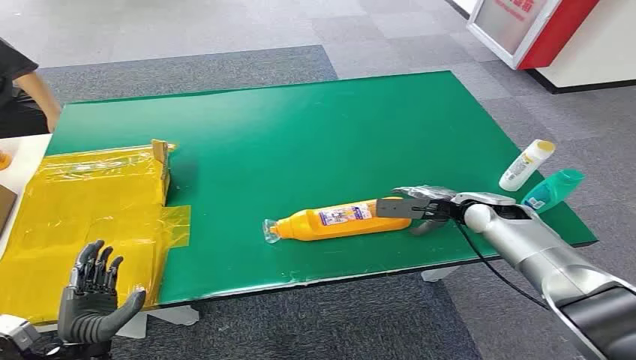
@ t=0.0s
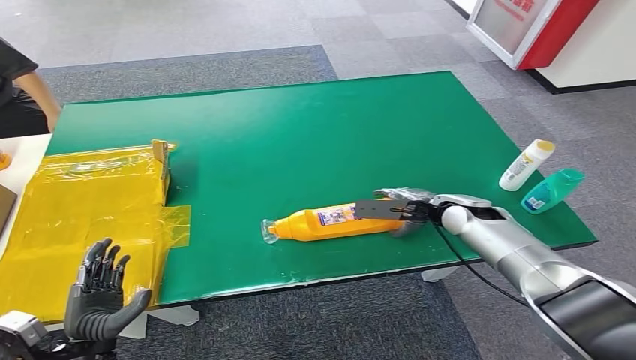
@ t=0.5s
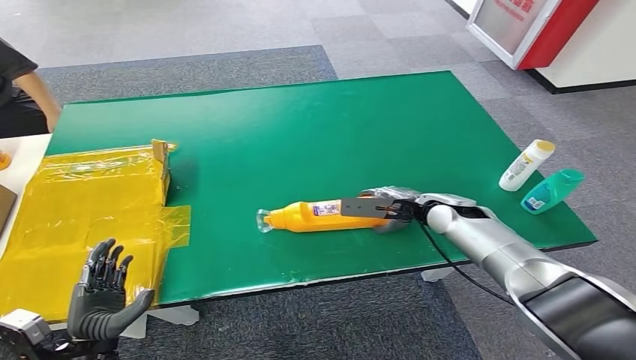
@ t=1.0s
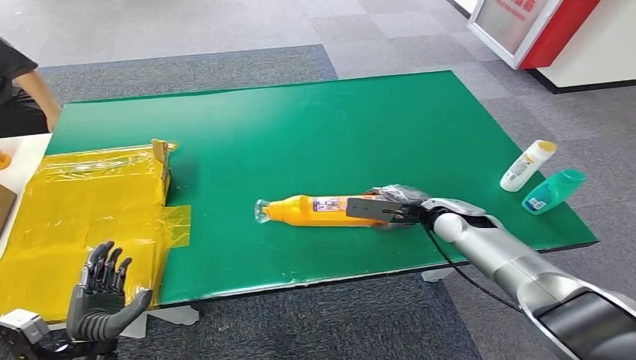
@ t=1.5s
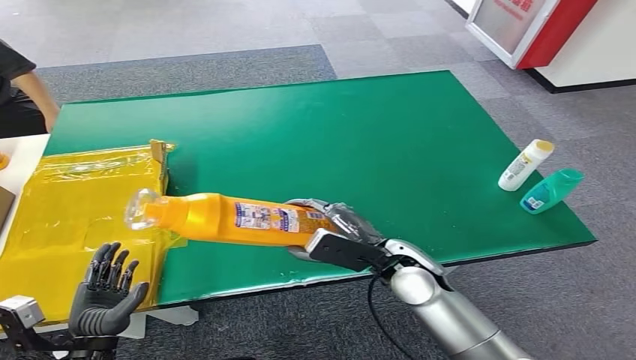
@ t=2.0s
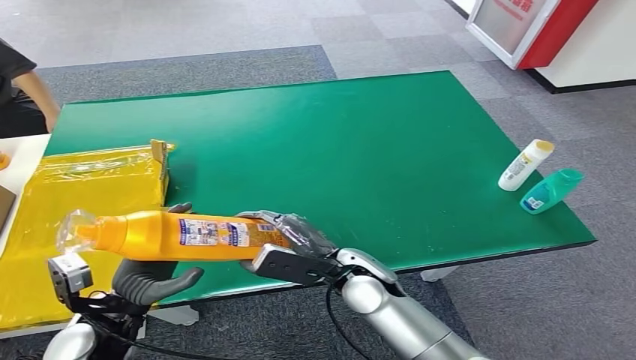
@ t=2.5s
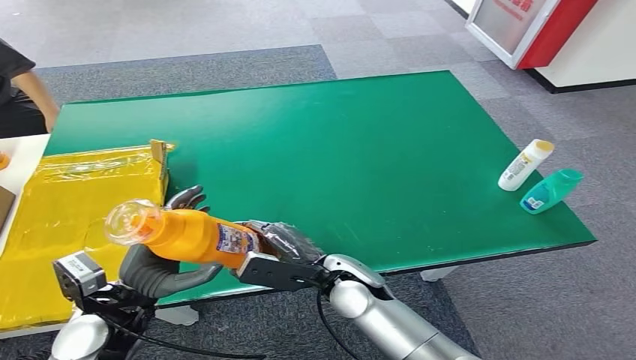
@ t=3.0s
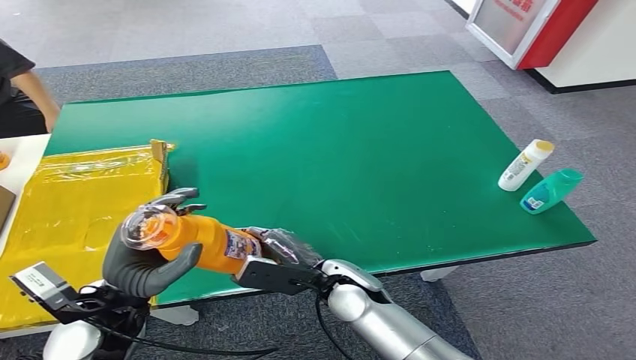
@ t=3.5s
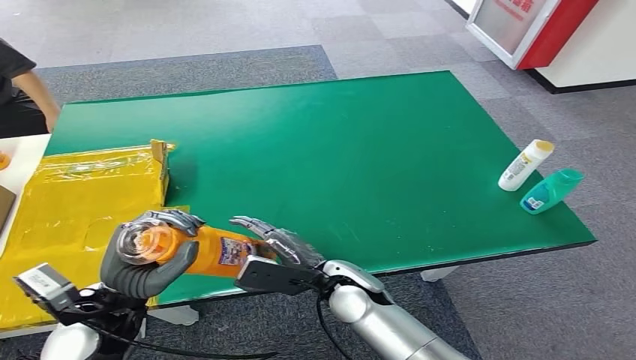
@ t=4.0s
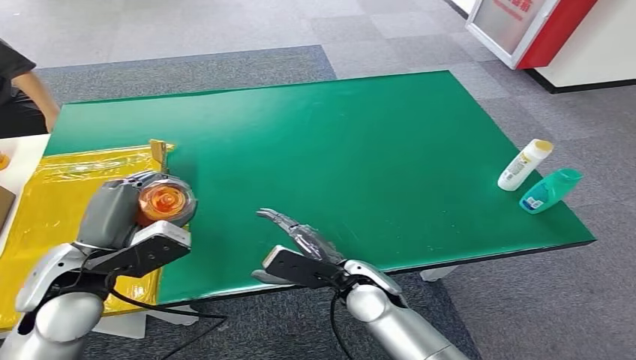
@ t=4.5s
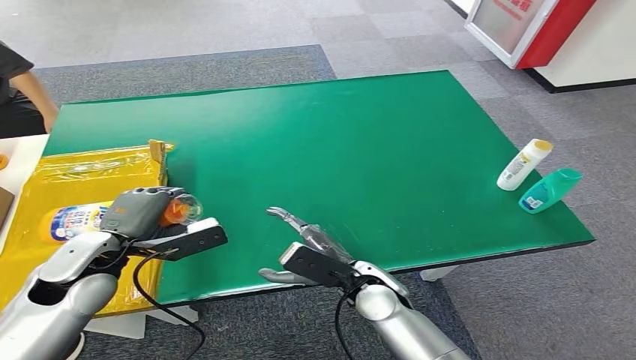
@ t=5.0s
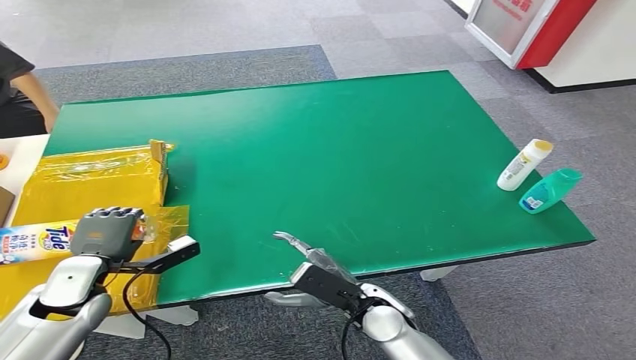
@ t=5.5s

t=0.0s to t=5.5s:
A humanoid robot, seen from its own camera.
Step, t=0.0s to t=2.0s: Pick up the bottle from the table.
Step, t=2.5s to t=5.5s: Turn the bottle to the front side.
t=2.0s to t=3.5s: The left hand shifts approximately 15 cm upward, to the right and forward. The right hand goes about 10 cm to the left.
t=3.5s to t=5.5s: The left hand shifts about 15 cm to the left, forward and downward. The right hand ends up some 5 cm from where it was.
